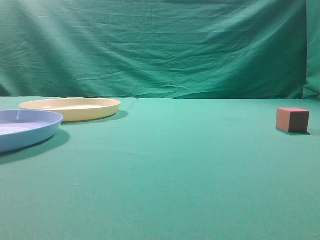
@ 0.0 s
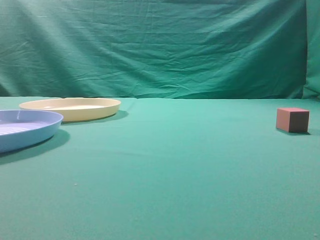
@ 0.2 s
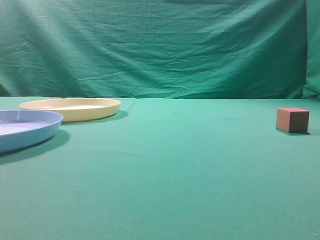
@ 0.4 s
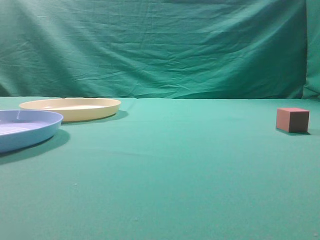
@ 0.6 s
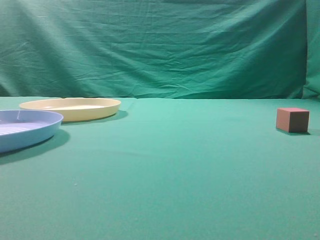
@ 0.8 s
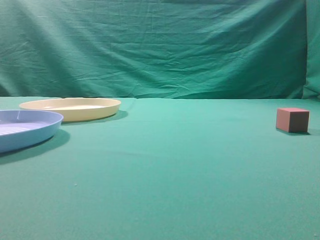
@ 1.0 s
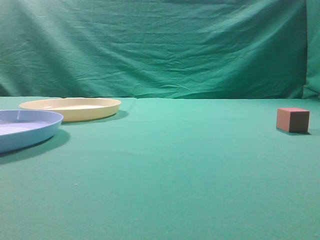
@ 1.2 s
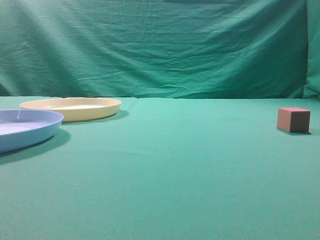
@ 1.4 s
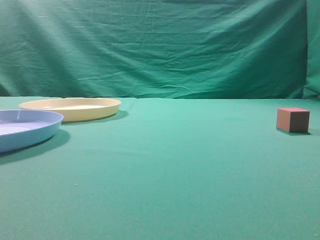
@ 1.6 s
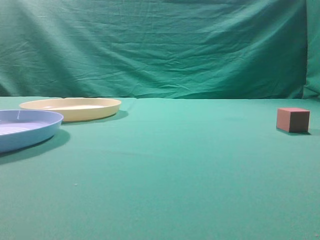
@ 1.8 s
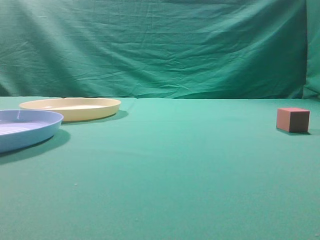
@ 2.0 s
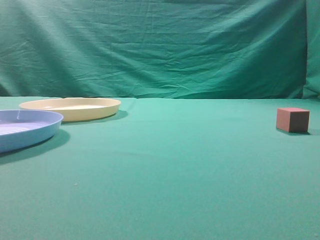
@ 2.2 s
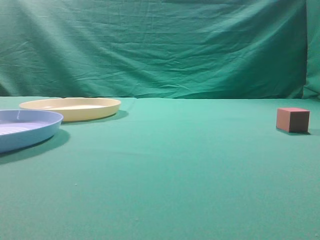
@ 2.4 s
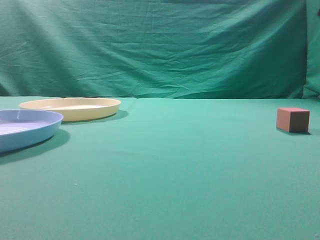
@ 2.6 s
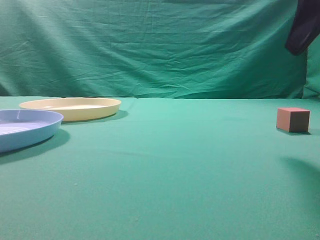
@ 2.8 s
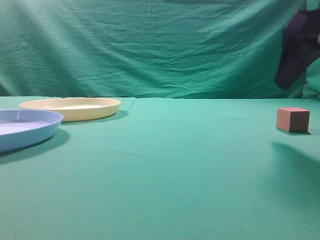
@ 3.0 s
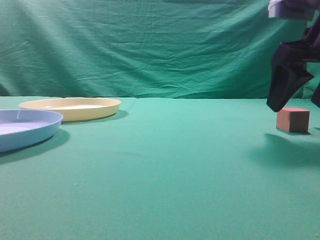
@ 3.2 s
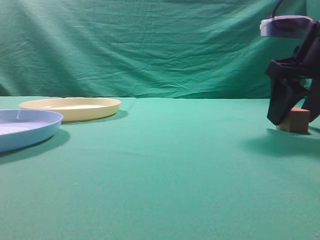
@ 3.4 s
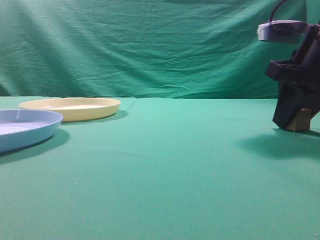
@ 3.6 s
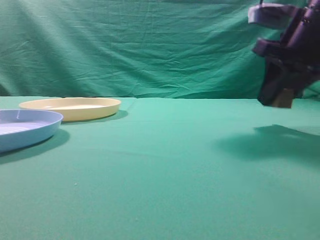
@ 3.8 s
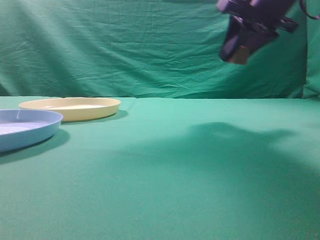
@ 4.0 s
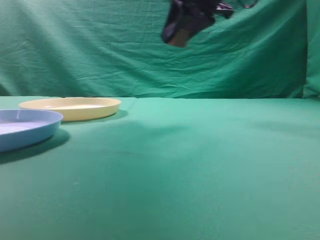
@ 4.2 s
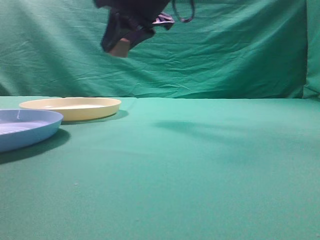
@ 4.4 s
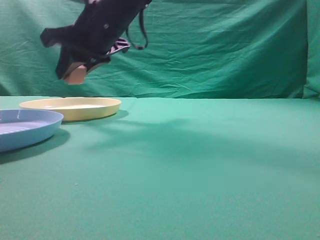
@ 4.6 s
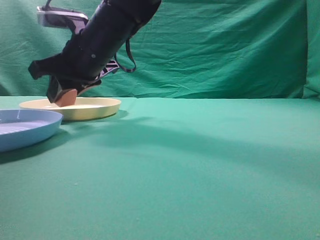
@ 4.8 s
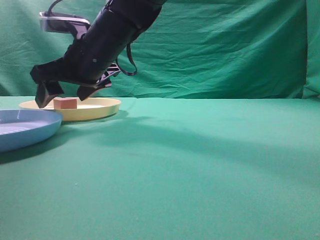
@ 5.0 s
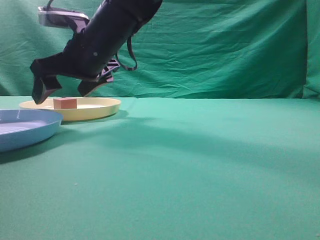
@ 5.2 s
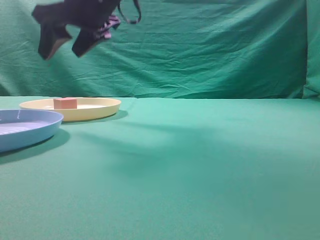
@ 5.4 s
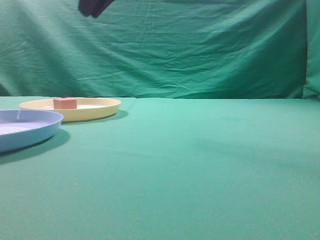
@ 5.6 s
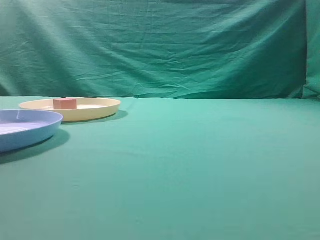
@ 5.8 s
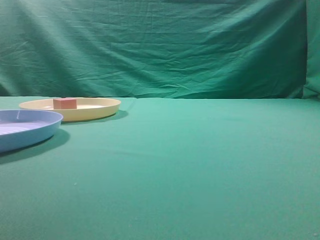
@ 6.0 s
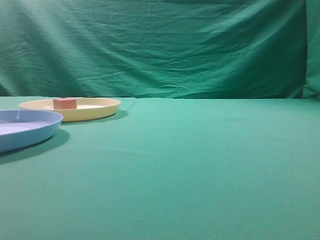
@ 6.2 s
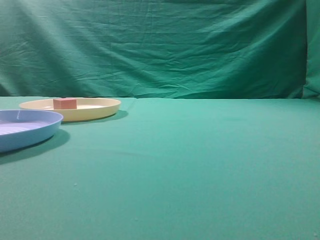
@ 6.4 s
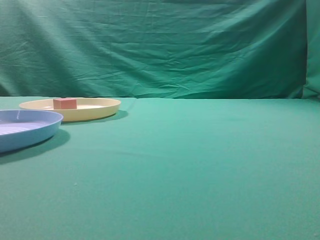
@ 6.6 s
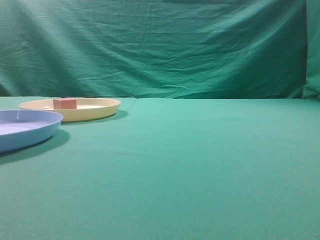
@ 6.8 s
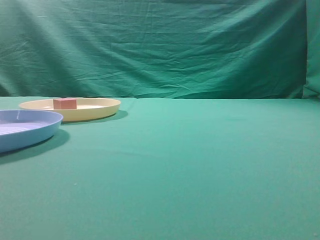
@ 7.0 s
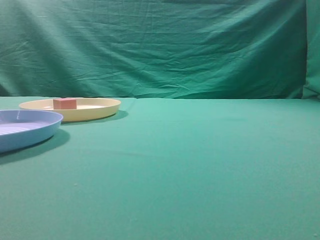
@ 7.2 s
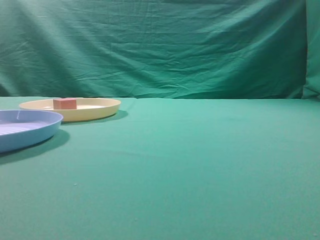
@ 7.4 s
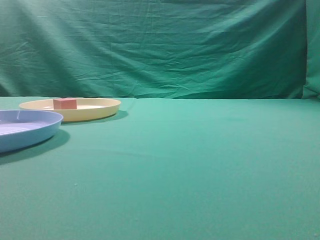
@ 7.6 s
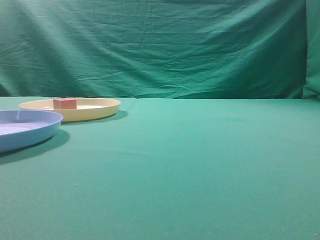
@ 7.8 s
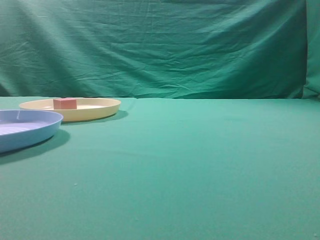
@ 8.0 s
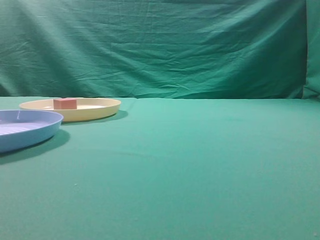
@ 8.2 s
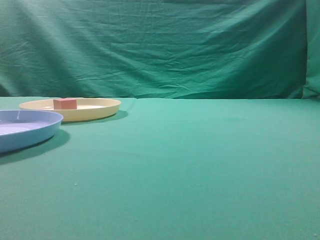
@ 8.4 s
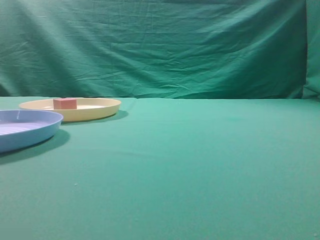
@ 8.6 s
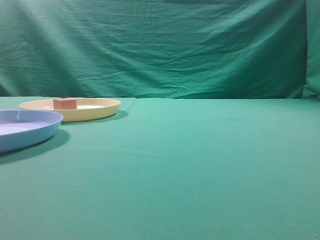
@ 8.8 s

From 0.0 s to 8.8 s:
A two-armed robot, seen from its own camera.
Task of the whole recording: pick up the cube block from the table and put it on the plate.
Step, from 0.0 s to 3.8 s: Grasp the small cube on the table.
Step, from 4.0 s to 5.4 s: Place it into the yellow plate.
From 1.4 s to 3.0 s: The right gripper is displaced forward by approximately 25 cm, and opens up.
From 3.0 s to 4.4 s: The right gripper shifts approximately 30 cm to the left, and closes.
From 4.4 s to 5.8 s: The right gripper shifts approximately 25 cm upward and to the right, and closes up.
